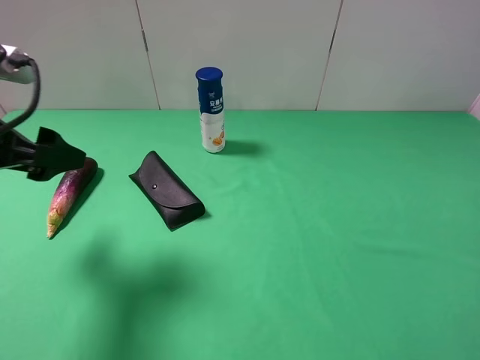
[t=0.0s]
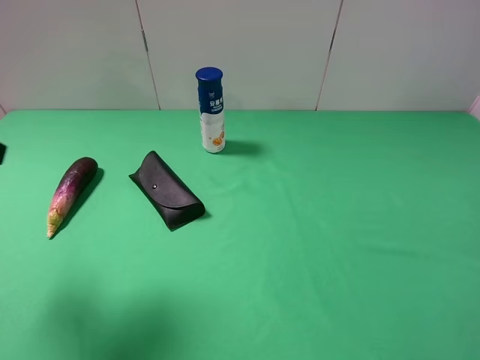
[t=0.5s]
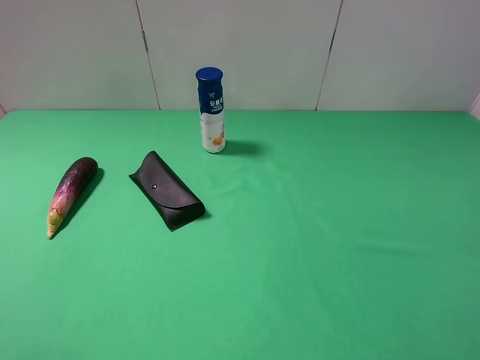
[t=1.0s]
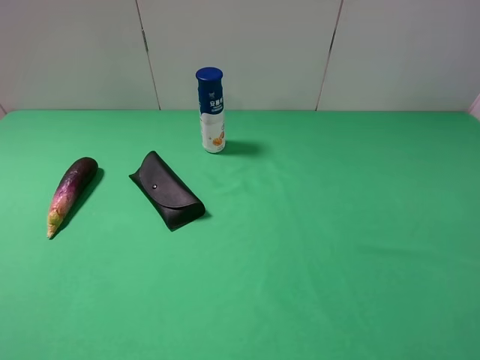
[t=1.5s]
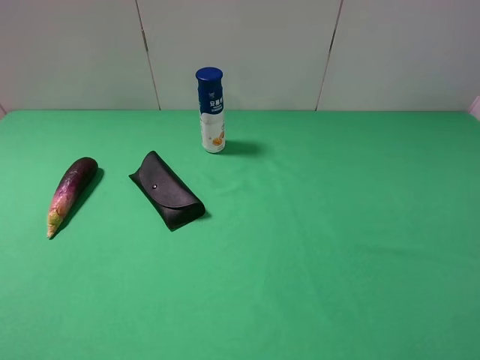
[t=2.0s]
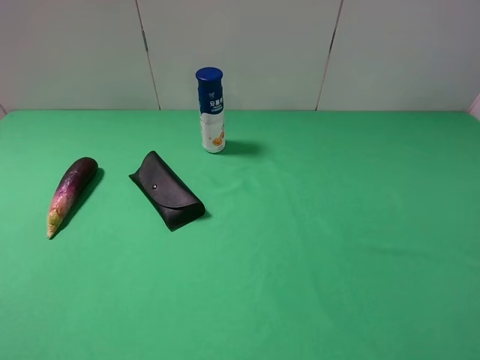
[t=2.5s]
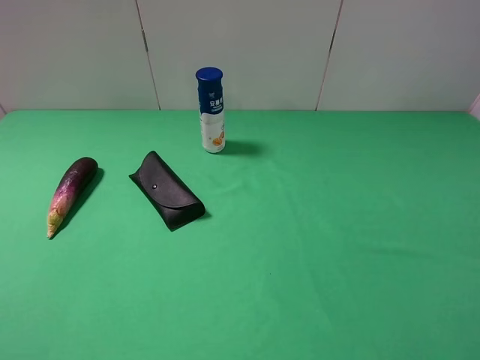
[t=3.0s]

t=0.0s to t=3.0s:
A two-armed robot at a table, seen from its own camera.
Task of the whole recording: use the right gripper to pick up the item and transfer it from the right gripper to the left gripper.
t=0.0s to t=1.5s: The left gripper travels backward by some 20 cm.
